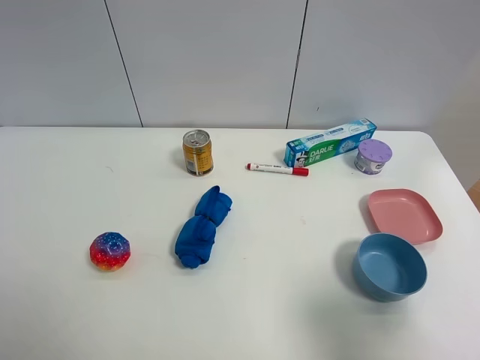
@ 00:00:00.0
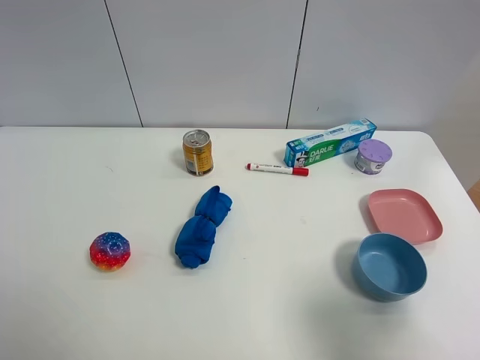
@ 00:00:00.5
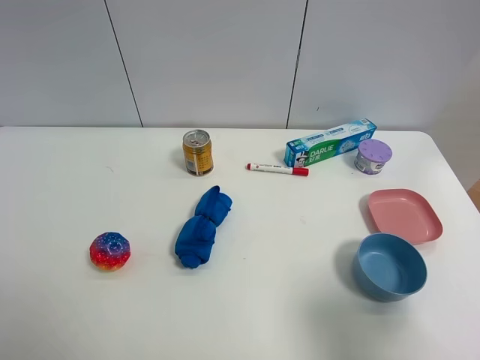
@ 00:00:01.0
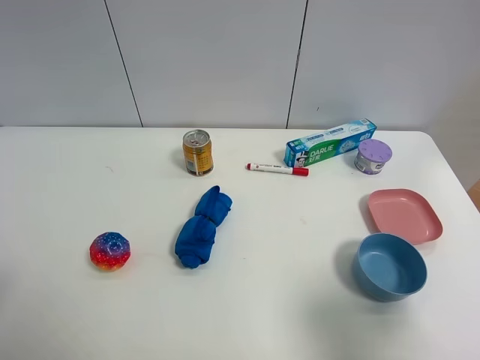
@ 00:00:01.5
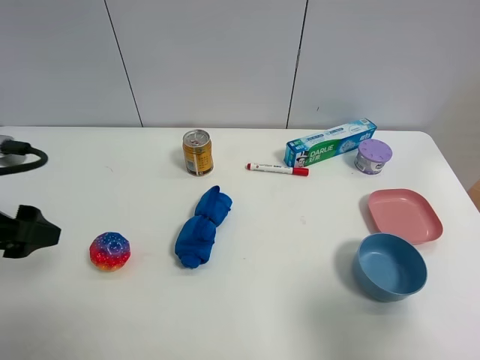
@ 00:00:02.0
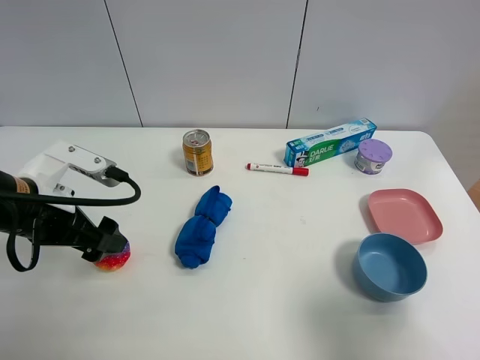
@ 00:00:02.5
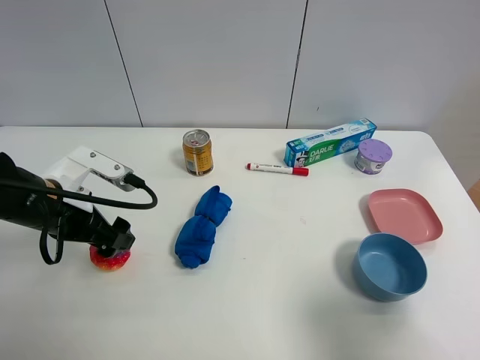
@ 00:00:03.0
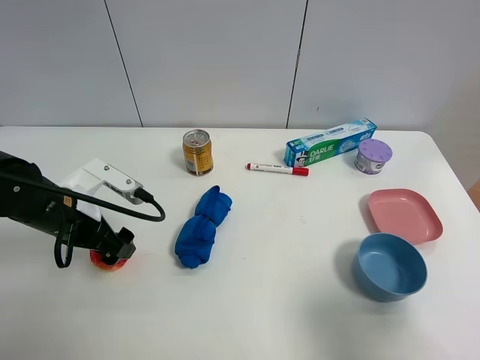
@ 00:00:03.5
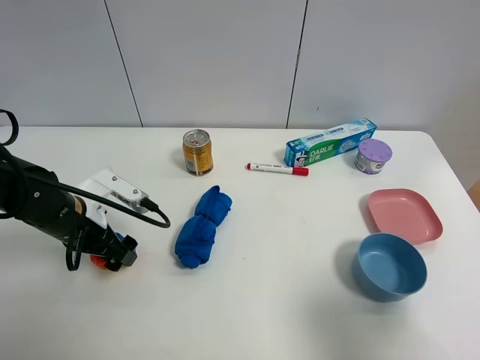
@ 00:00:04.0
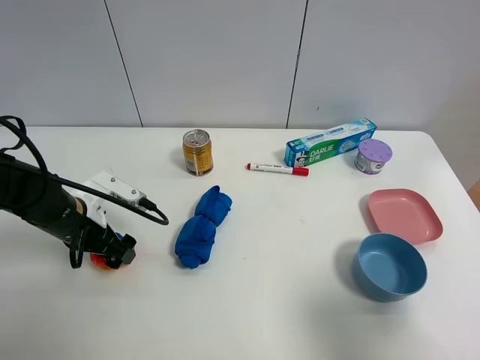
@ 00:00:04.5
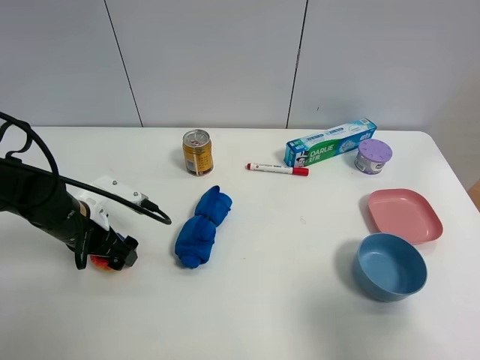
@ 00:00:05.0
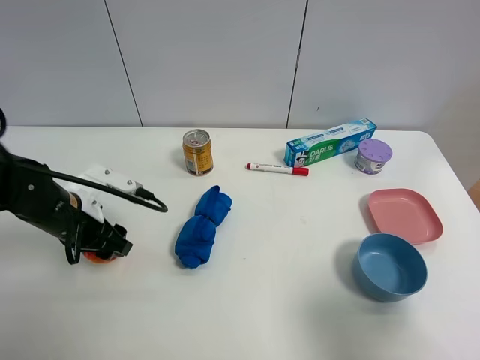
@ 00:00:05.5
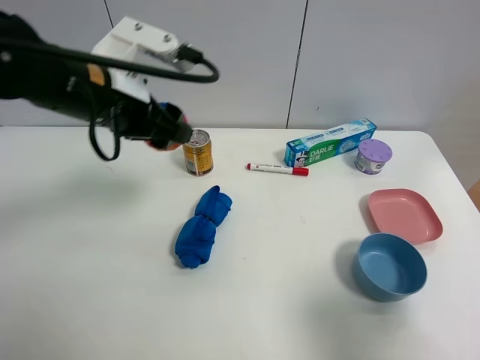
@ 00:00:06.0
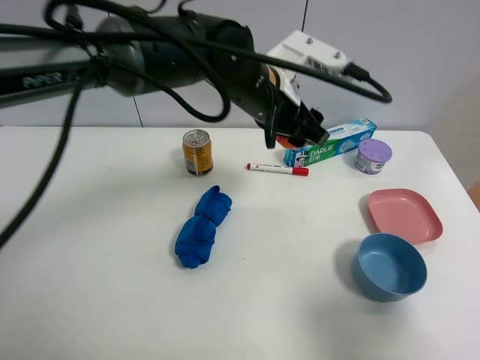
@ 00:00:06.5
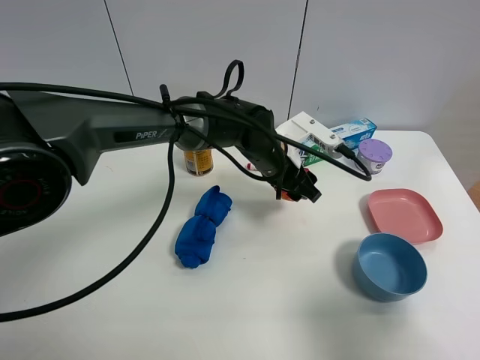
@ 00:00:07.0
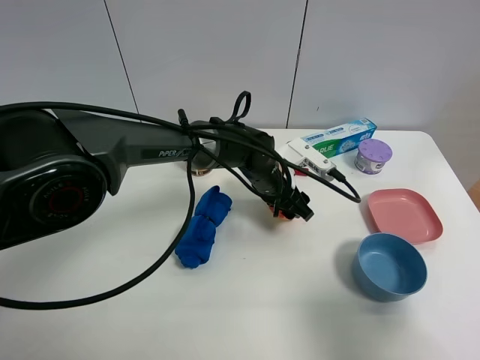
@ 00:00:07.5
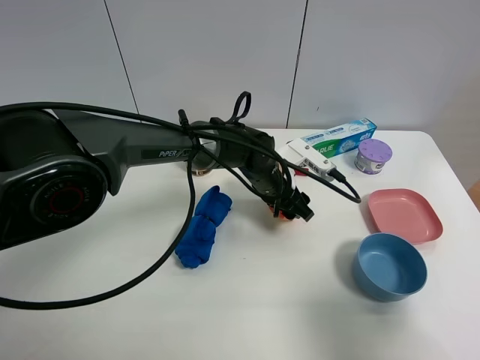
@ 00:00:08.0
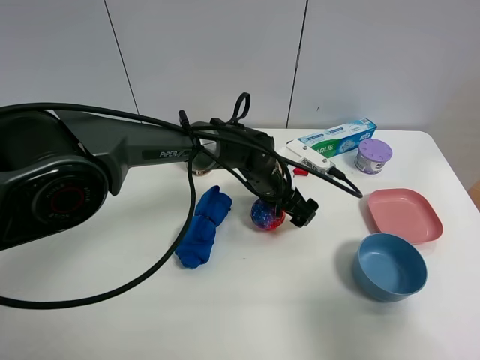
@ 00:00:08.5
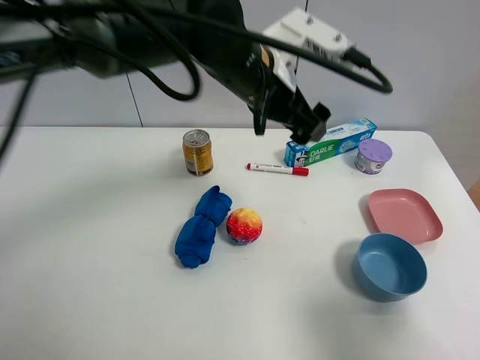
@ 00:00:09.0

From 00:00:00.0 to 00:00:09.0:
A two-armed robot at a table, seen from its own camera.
Task of the whole recording: the gripper move the object.
Step, from 00:00:00.0 to 00:00:05.0: Grasp the colorful ball with the left gripper.
Step, from 00:00:05.5 to 00:00:08.0: Place the colorful ball on the table with the left gripper.
From 00:00:00.0 to 00:00:02.0: The left gripper goes some 15 cm forward.
From 00:00:02.0 to 00:00:04.5: The left gripper moves downward, forward and to the right, some 20 cm.
From 00:00:04.5 to 00:00:07.0: The left gripper goes approximately 30 cm to the right, and closes up.
From 00:00:07.0 to 00:00:09.0: The left gripper goes approximately 15 cm upward, and opens up.

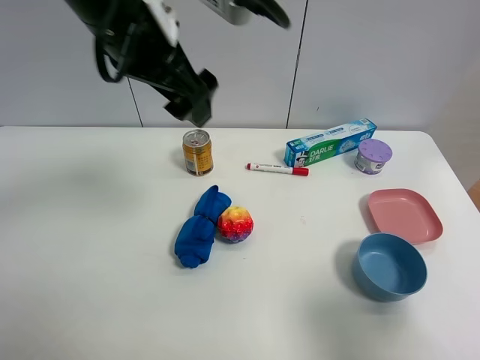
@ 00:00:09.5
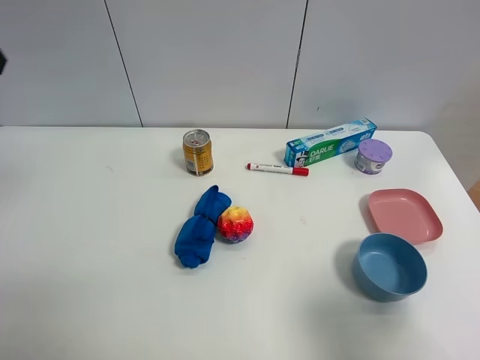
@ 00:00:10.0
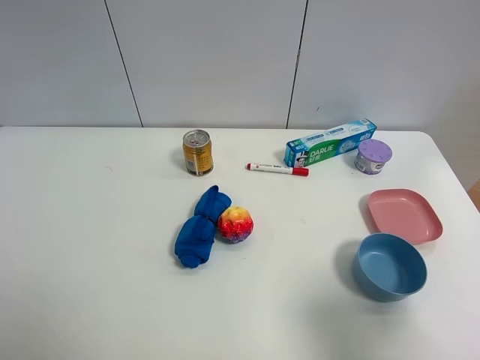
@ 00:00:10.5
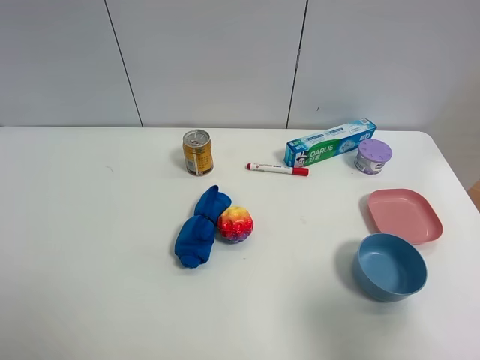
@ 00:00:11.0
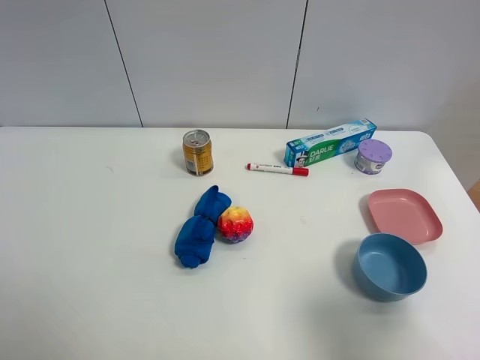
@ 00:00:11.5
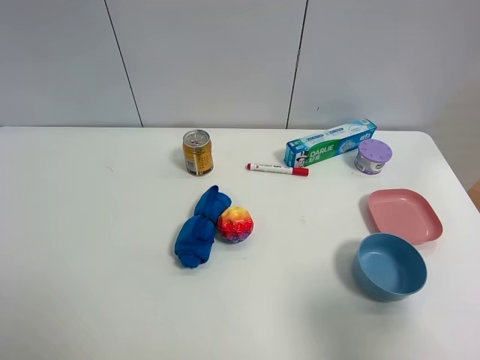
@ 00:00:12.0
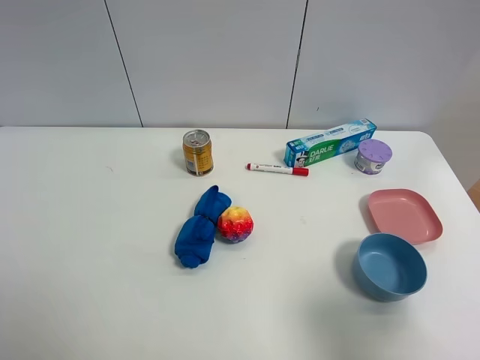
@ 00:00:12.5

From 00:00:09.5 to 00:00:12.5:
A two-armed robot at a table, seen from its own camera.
Task of the whole recording: the gripper move the object.
From 00:00:09.5 to 00:00:11.0: The left gripper shifts roughly 35 cm backward and to the left.
From 00:00:11.0 to 00:00:12.5: The two grippers keep their place.
